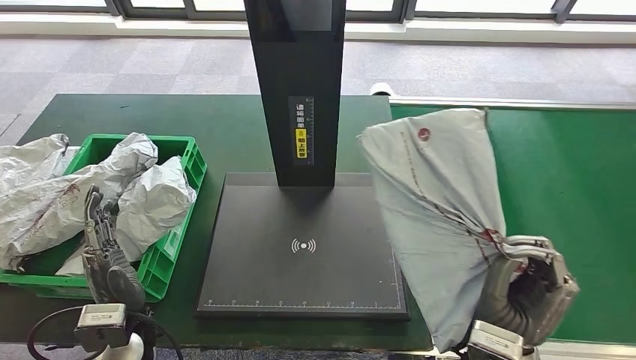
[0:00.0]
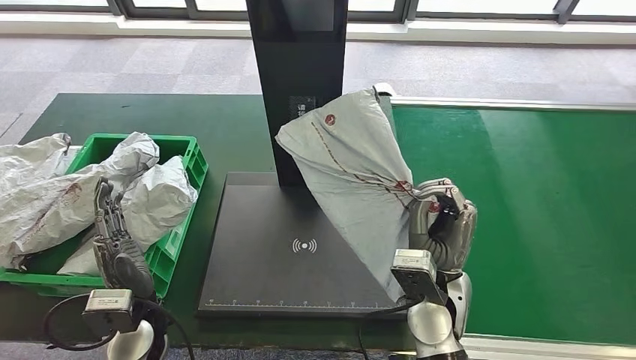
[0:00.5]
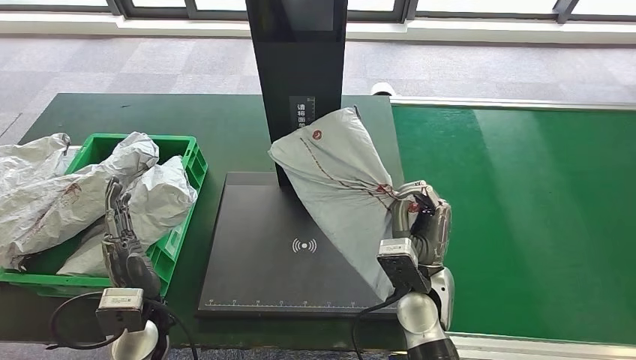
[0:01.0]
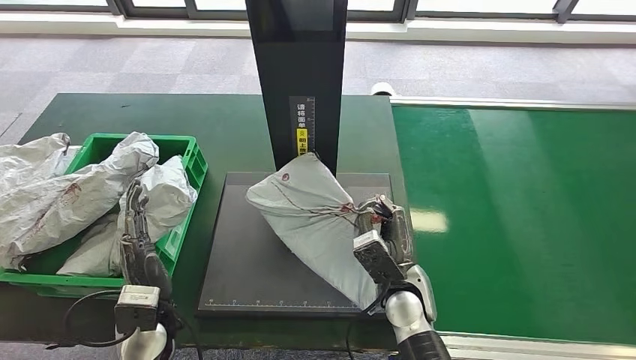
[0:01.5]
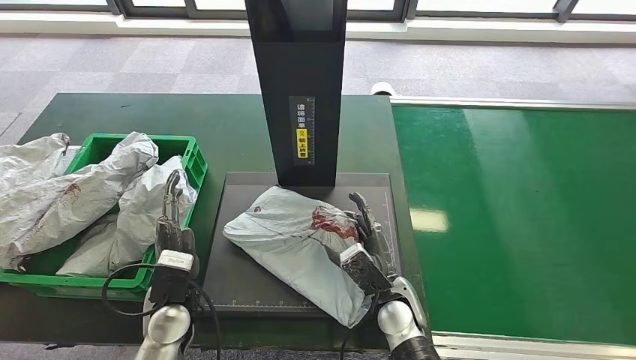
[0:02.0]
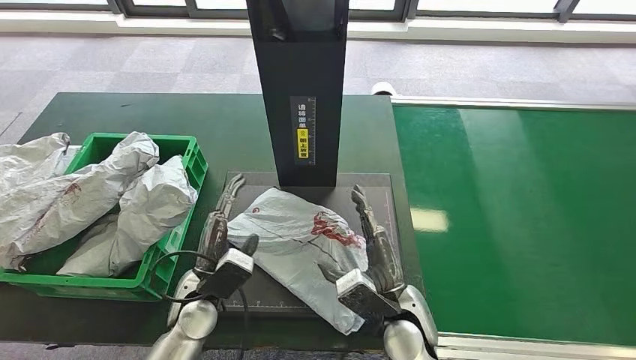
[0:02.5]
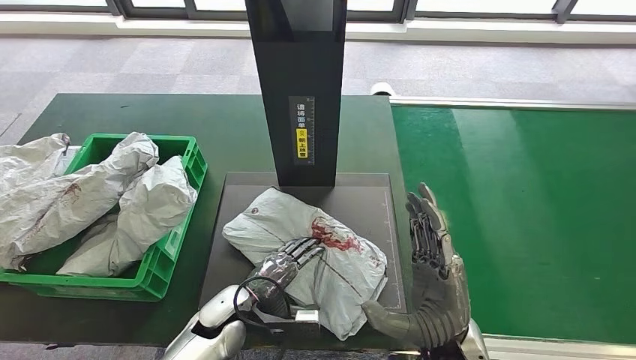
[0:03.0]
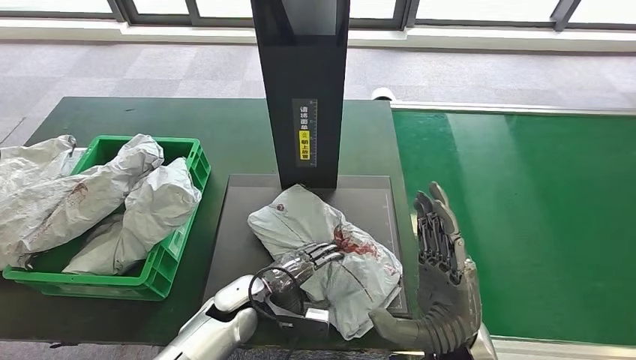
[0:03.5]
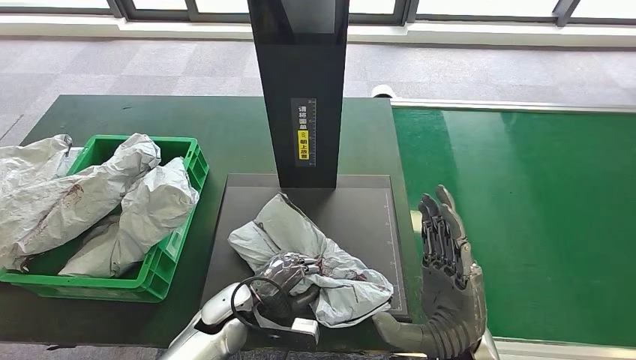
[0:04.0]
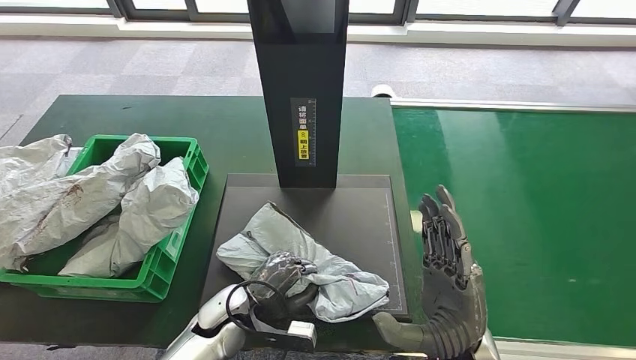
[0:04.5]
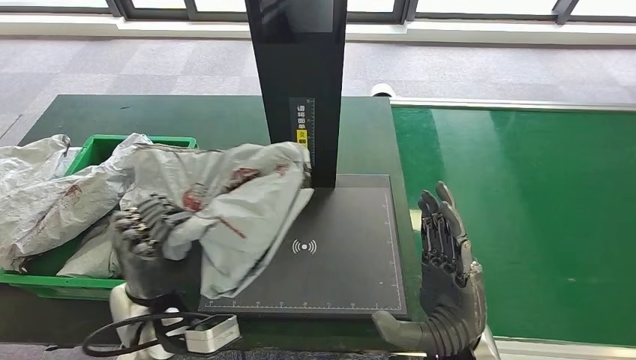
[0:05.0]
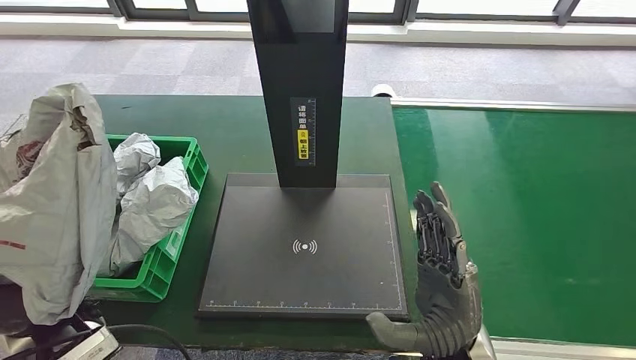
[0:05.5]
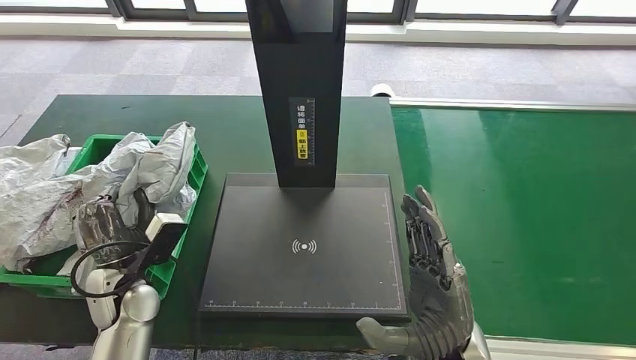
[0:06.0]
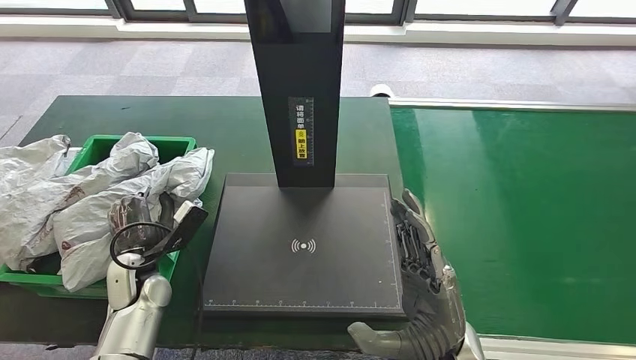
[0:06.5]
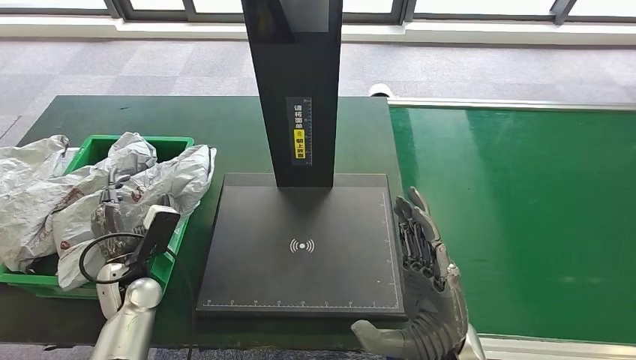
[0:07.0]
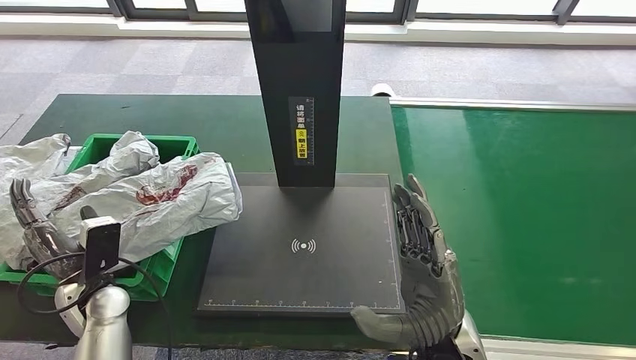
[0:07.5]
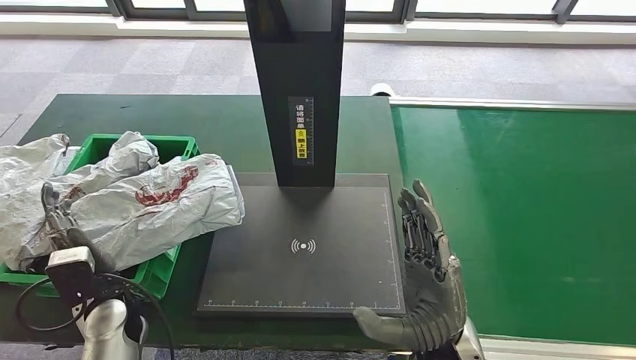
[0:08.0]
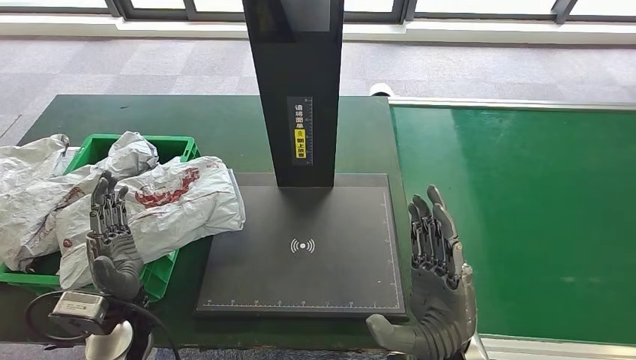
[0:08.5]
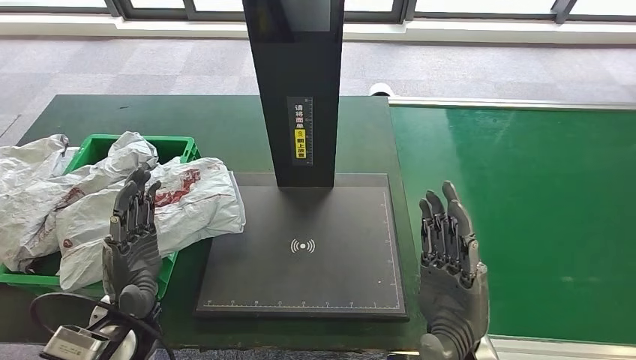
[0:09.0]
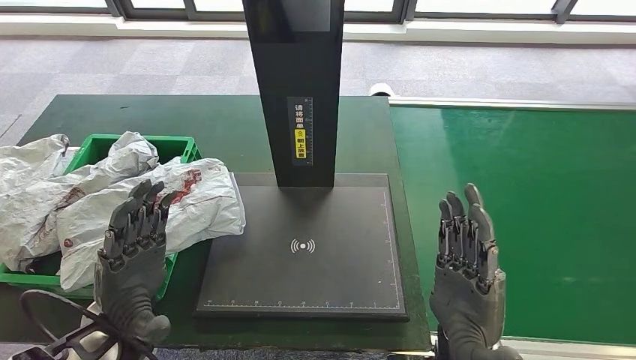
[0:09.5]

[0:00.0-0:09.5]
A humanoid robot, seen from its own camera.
Step, 0:00.5 to 0:03.5: Place the parcel onto the inbound machine.
Step, 0:04.0 to 0:05.5: Pick up the parcel from the inbound machine.
Step, 0:06.0 to 0:09.5: Place the parcel into the delivery box.
0:04.0 to 0:05.5: The left hand heads to the left and upward, covering roughly 25 cm.
0:05.5 to 0:07.5: The left hand heads downward and forward, covering approximately 15 cm.
0:07.5 to 0:09.5: The left hand shifts about 15 cm upward, to the right and backward.

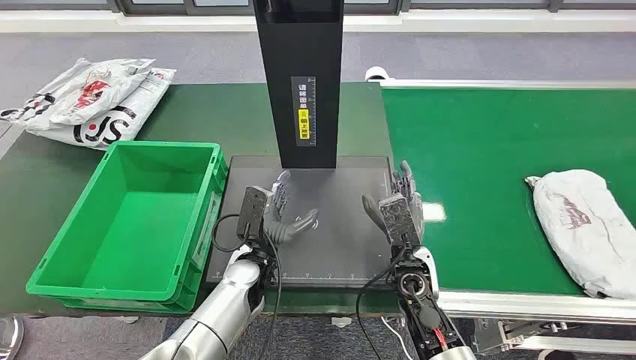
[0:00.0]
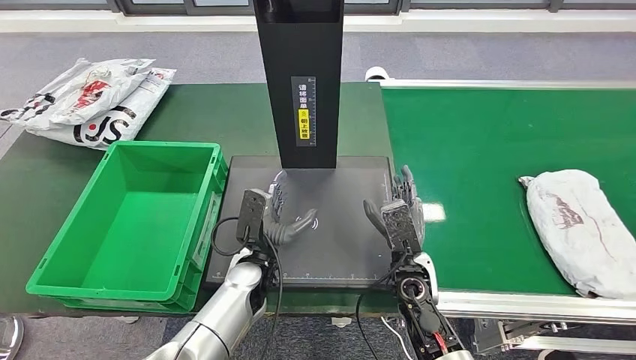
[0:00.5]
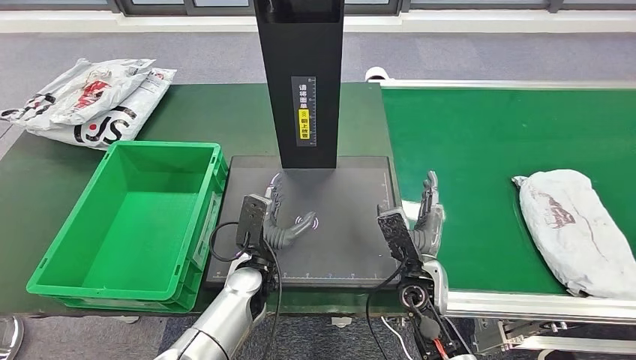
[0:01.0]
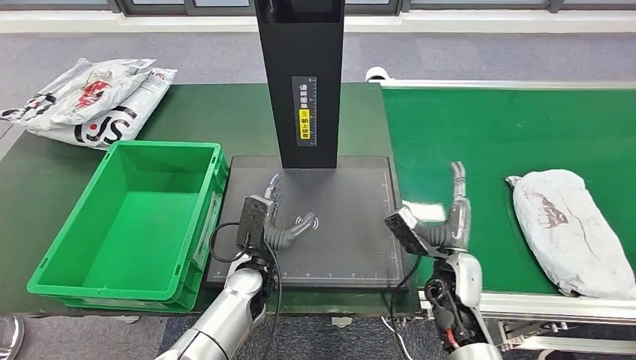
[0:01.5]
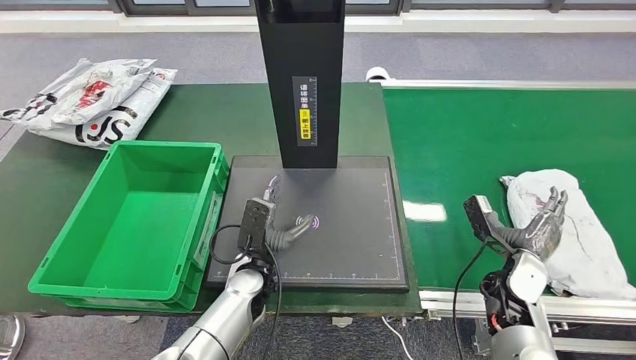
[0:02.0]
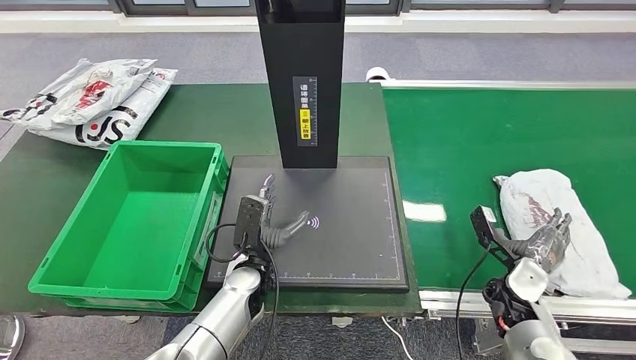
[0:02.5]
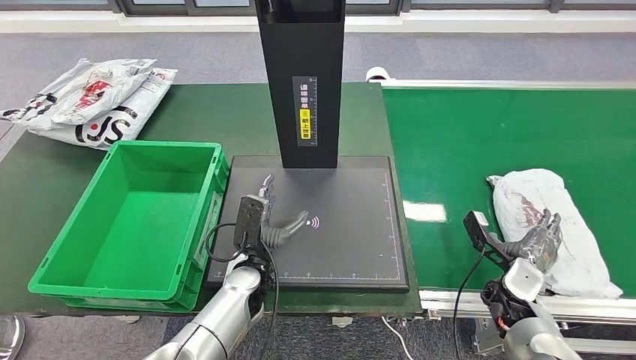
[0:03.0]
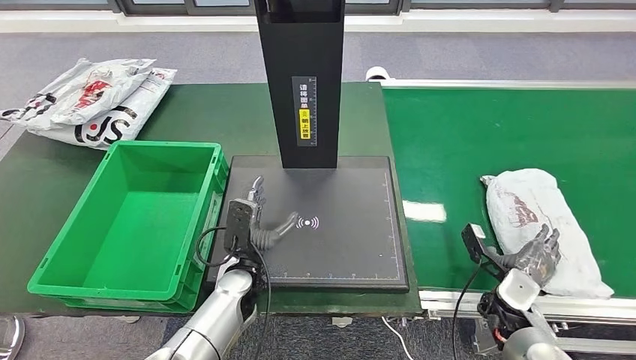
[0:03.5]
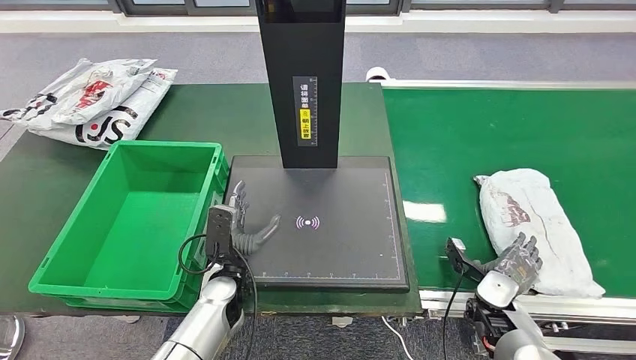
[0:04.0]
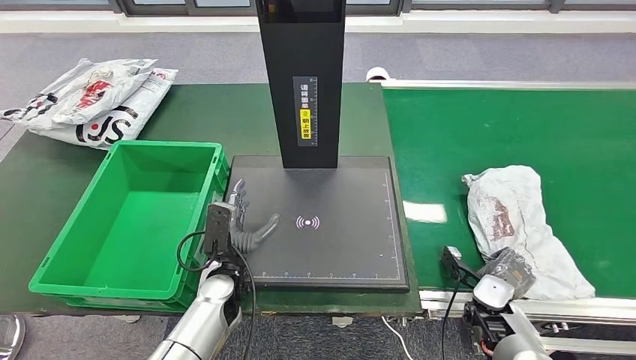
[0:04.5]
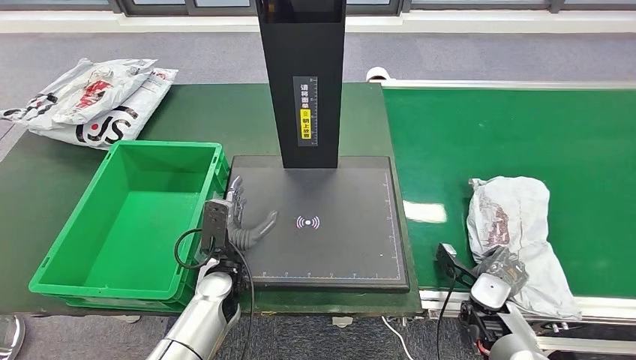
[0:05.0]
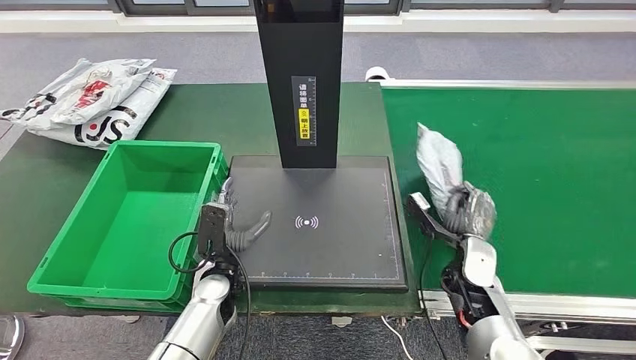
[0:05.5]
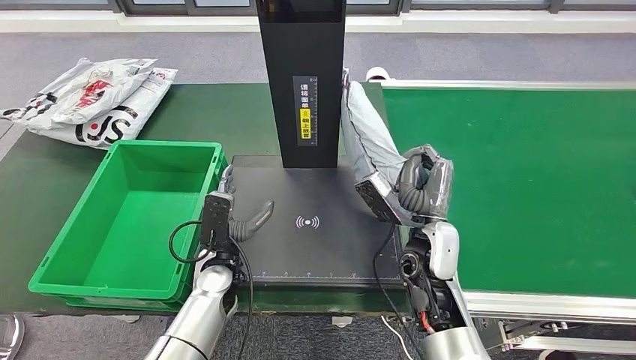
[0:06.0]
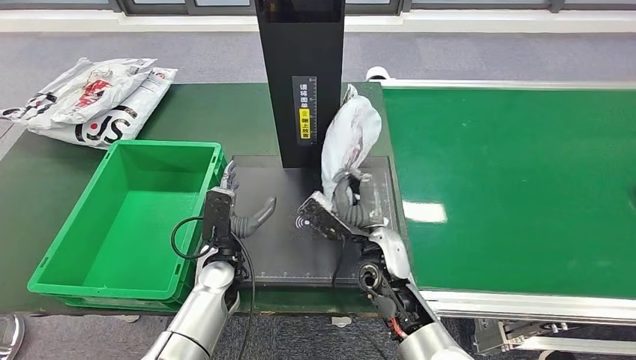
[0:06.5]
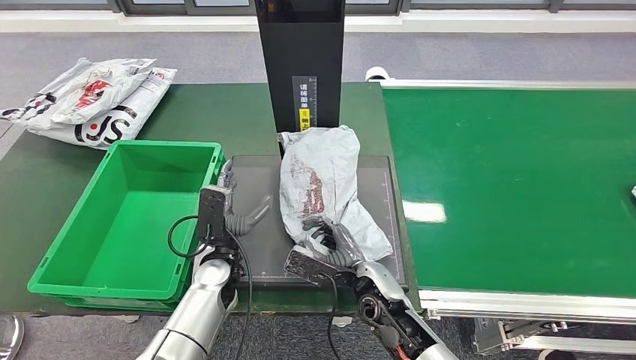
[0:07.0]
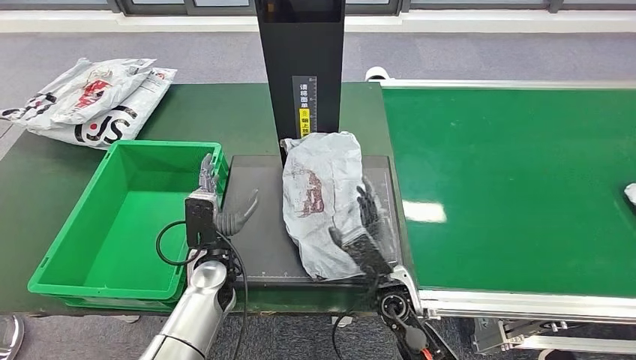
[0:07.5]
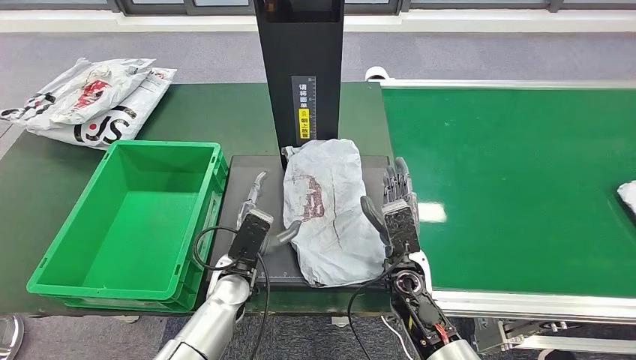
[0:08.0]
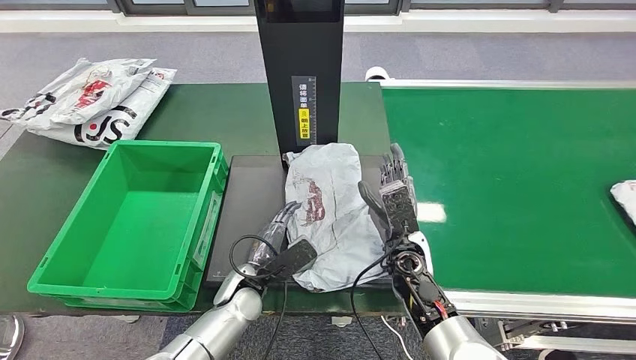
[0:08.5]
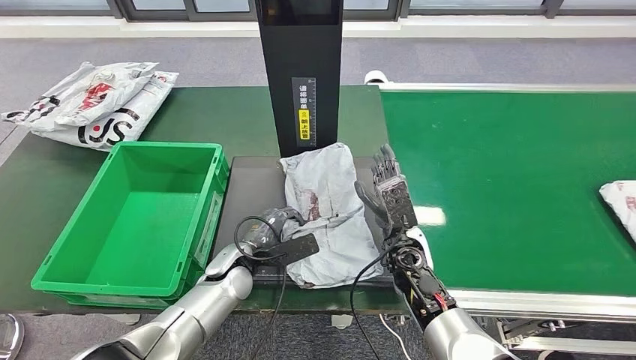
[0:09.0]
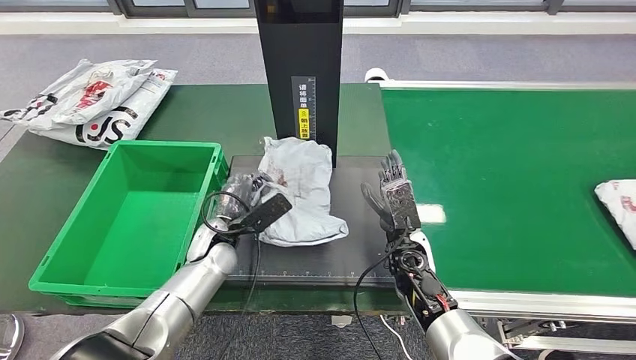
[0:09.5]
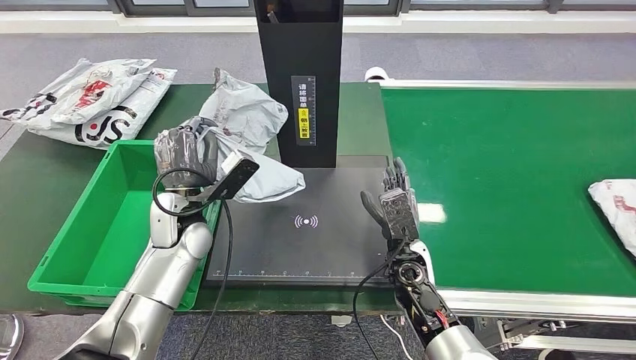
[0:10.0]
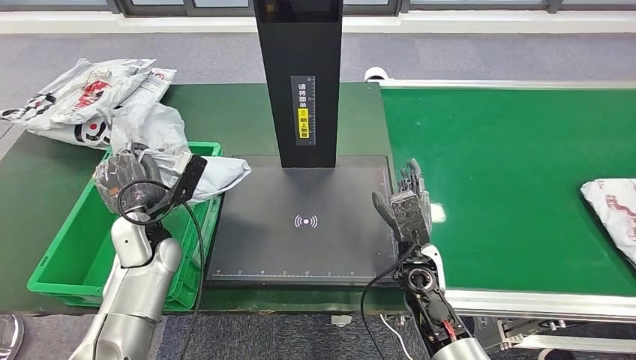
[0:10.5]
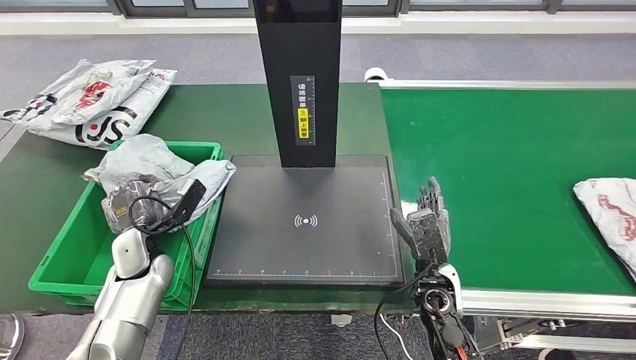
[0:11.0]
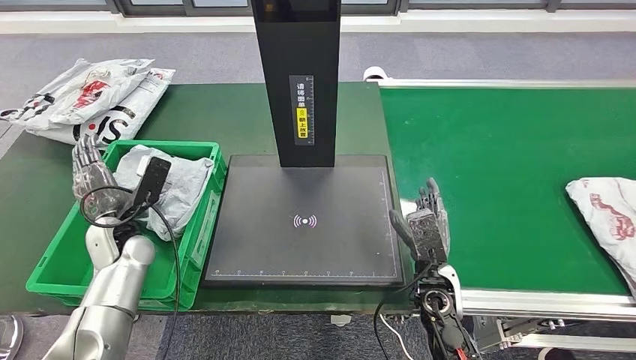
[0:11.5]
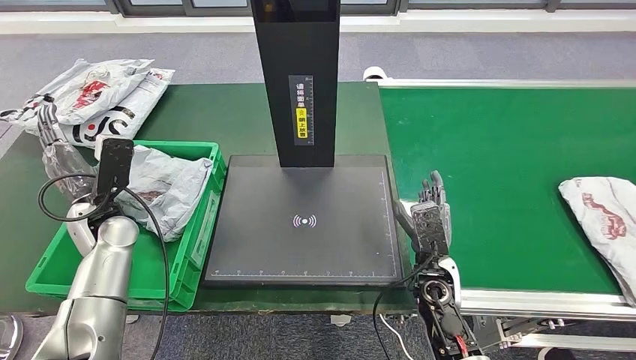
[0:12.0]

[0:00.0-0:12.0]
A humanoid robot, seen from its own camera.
Step, 0:00.0 to 0:06.0: Take the parcel off the conveyor belt.
Step, 0:06.5 to 0:08.5: Place the parcel onto the inbound machine.
Step, 0:09.0 to 0:10.5: Pick up the parcel from the inbound machine.
0:02.0 to 0:04.0: The right hand goes roughly 5 cm downward; the left hand moves about 5 cm.
0:06.0 to 0:08.0: The right hand shifts about 5 cm downward.
